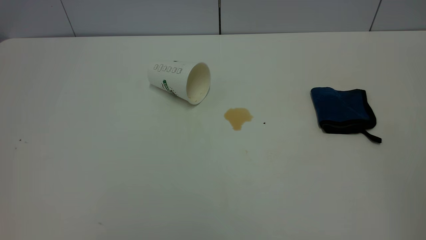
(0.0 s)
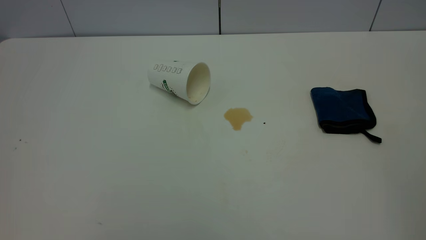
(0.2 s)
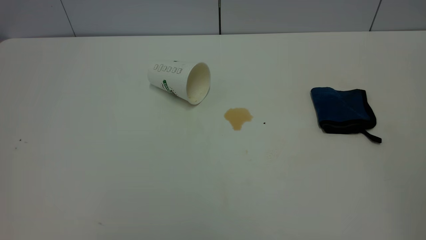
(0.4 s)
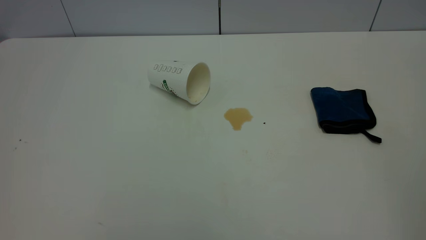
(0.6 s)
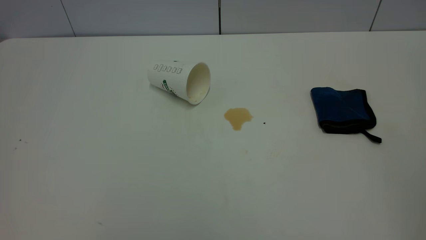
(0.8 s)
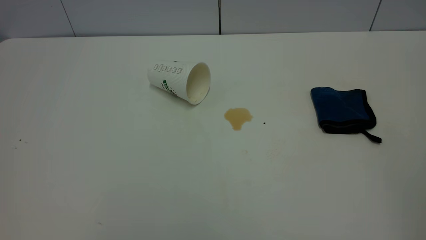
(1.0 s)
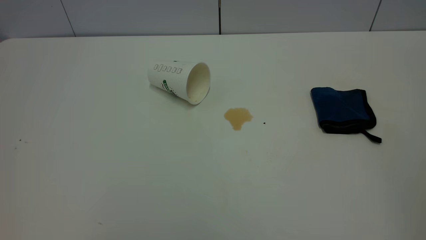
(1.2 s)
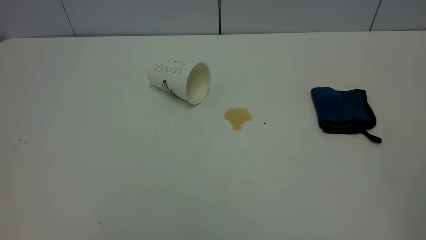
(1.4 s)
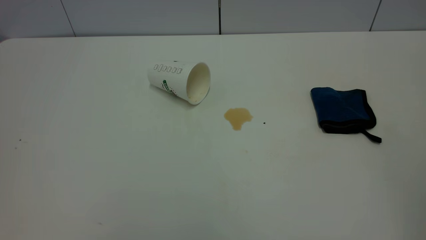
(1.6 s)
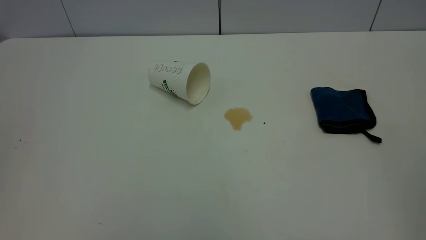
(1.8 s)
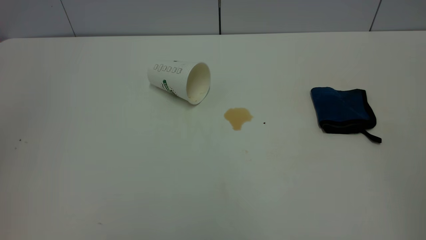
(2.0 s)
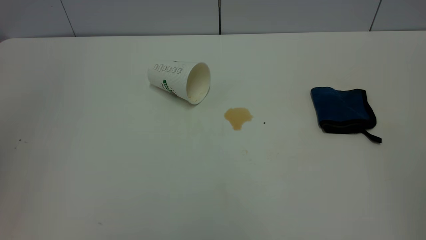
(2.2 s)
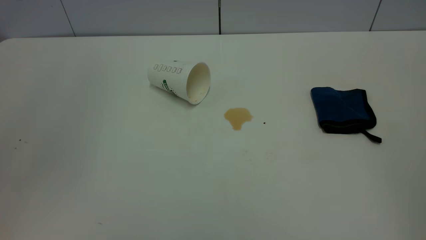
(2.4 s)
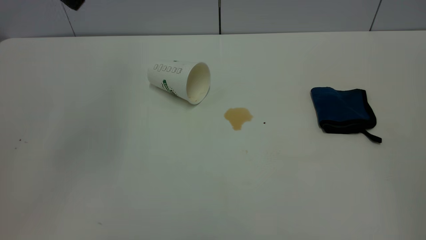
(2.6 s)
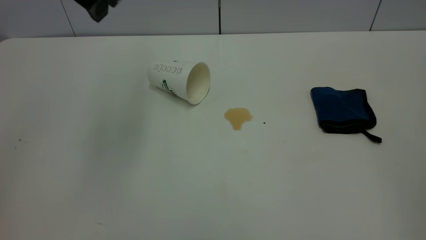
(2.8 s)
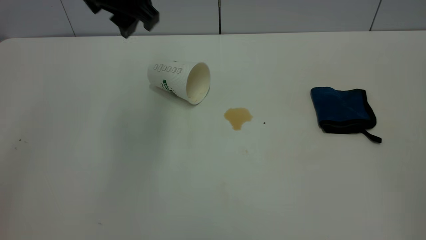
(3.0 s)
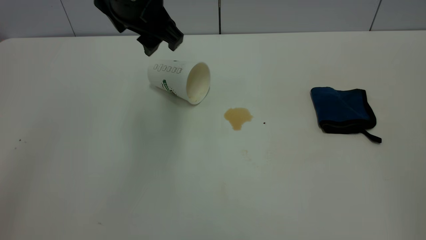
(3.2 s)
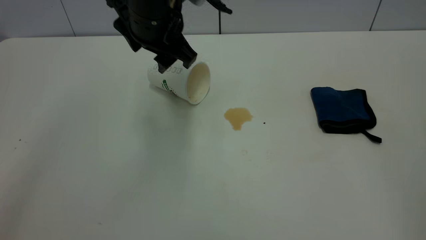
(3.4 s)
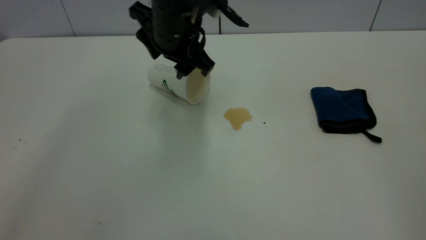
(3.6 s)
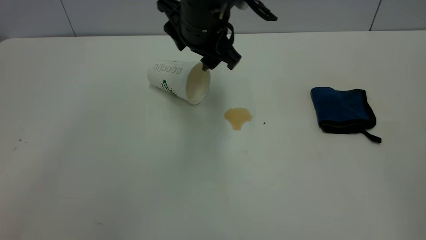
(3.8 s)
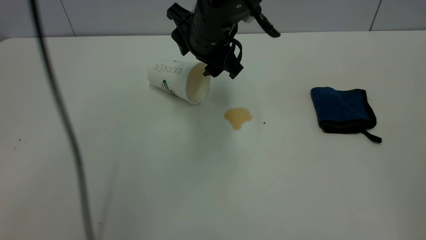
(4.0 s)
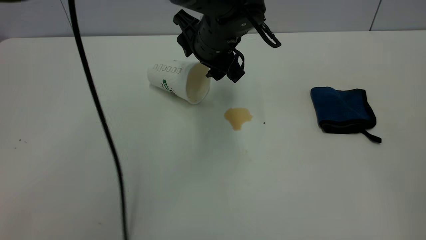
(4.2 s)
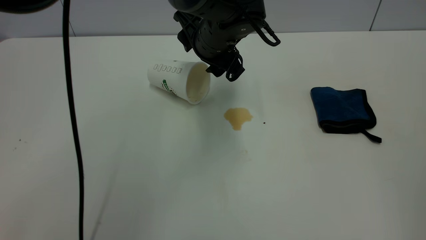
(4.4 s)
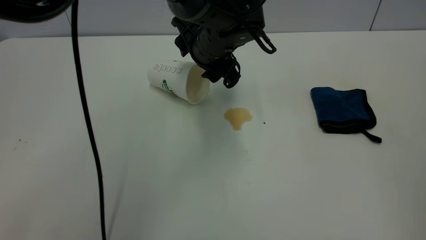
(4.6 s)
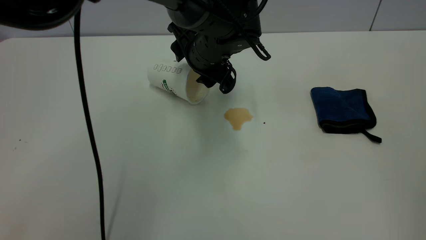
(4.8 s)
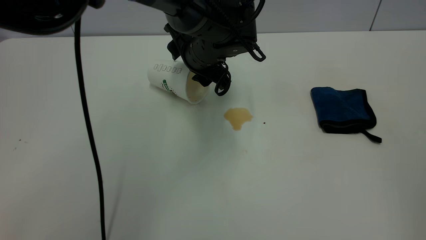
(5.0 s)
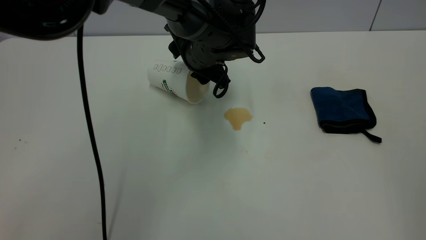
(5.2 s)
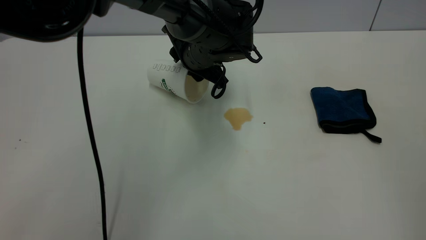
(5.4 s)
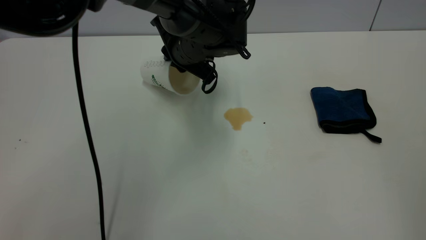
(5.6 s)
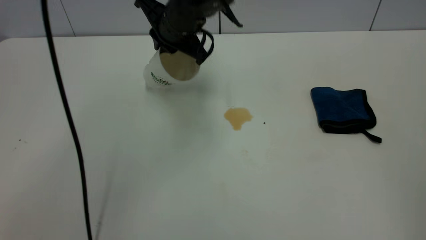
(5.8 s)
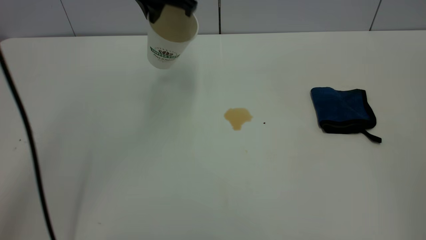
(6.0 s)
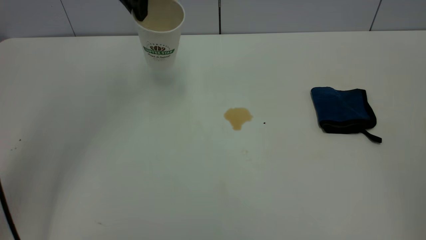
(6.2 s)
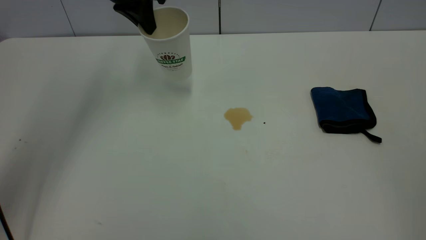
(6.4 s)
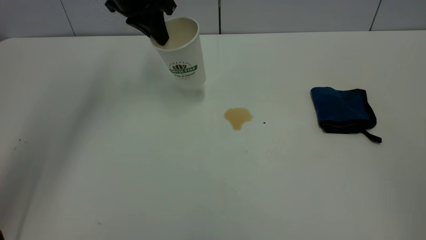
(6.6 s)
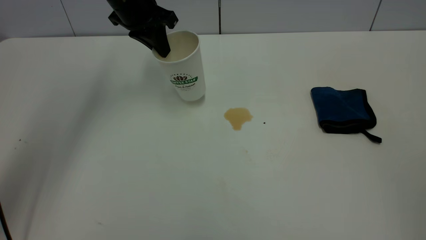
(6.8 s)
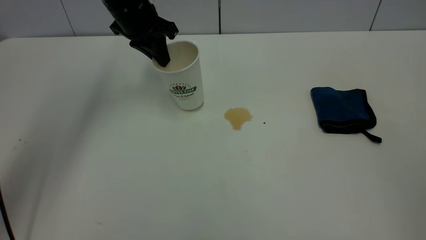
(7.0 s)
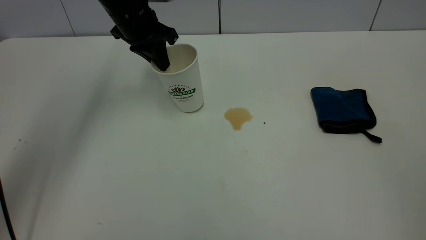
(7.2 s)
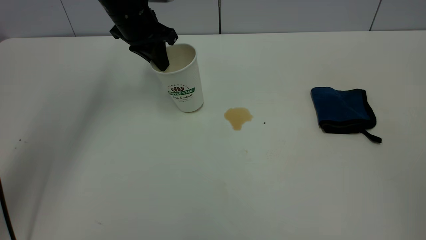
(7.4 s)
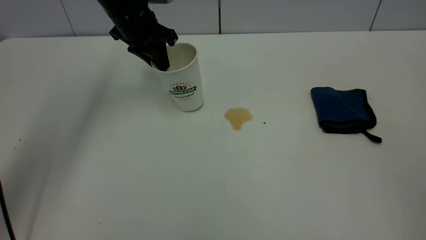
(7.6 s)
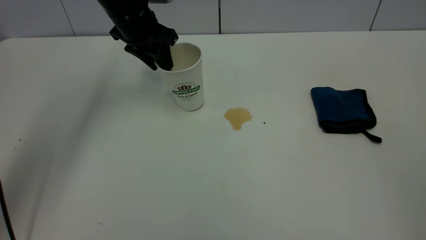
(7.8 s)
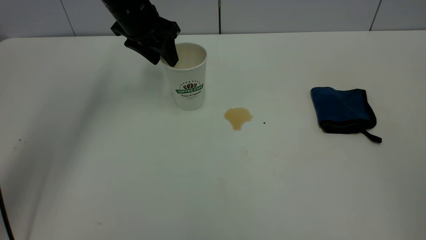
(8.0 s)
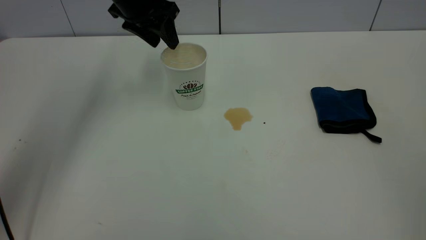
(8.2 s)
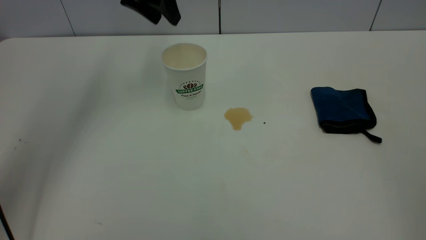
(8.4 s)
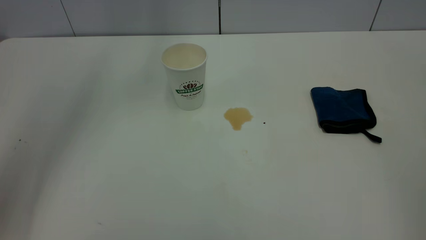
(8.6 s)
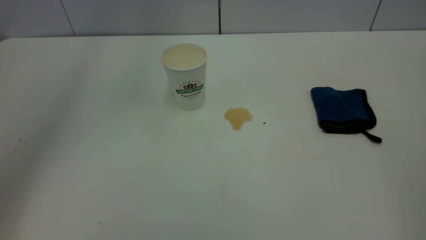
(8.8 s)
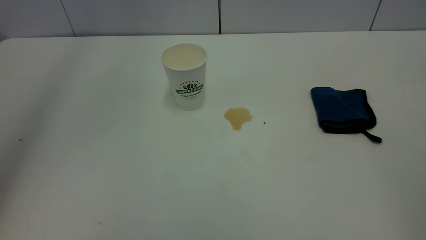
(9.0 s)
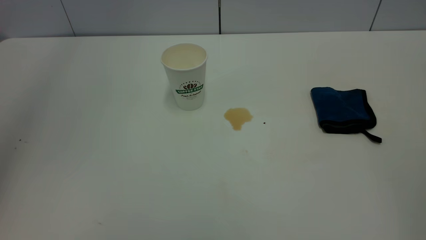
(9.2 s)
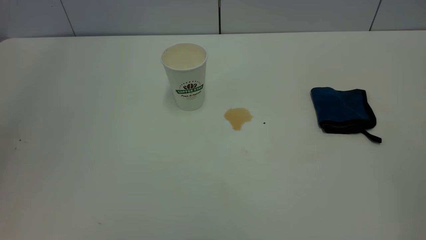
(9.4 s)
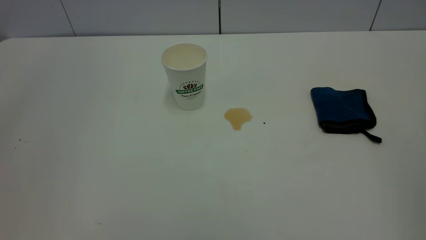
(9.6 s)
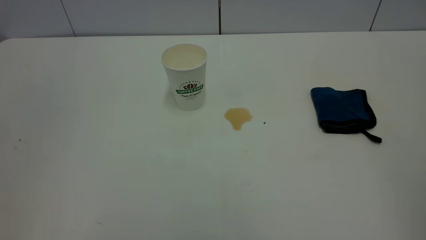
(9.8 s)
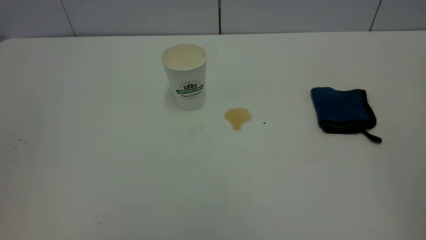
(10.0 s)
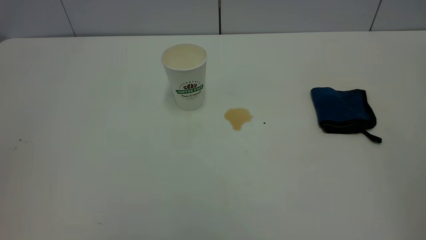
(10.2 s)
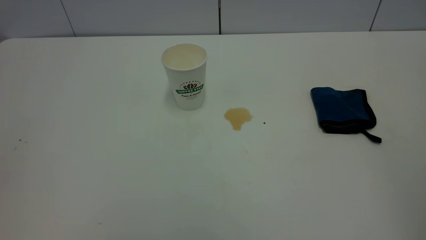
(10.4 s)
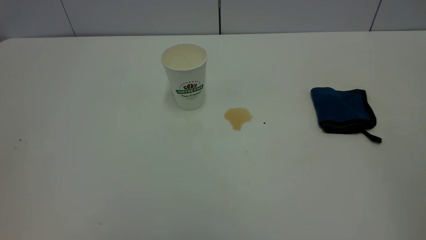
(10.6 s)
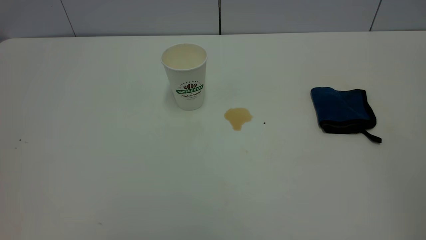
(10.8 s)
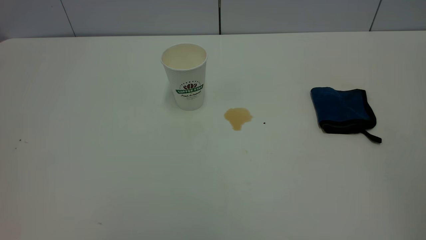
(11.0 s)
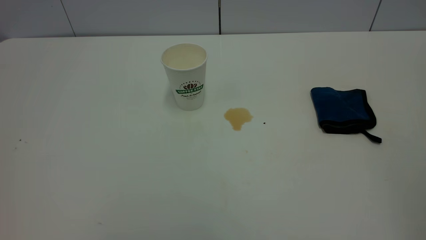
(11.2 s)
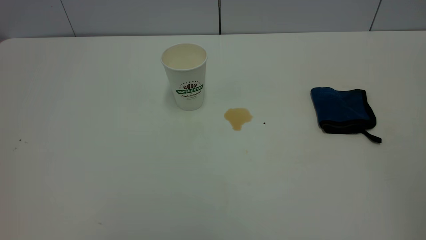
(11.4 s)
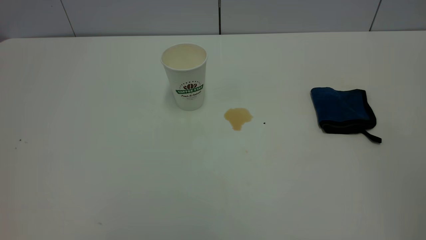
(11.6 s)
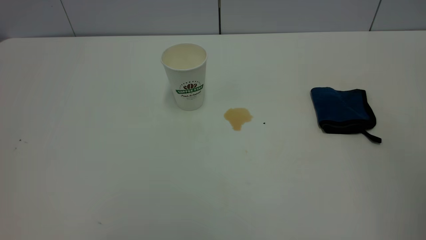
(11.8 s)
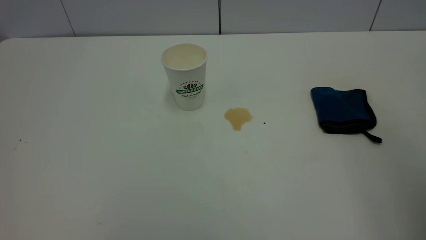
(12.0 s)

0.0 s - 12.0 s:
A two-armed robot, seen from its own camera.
Task of the whole recording: the left gripper pick up the fallen cup and place it upright, the right gripper grasp the blue rag and wipe the tea stain on the table, the right gripper put the blue rag back in its original position.
Step, 0.0 s - 8.2 s: Stand the paper cup upright.
1.6 s - 3.0 s: The left gripper heads forward and to the right, covering some 40 cm.
3.0 s - 4.4 s: The left gripper heads downward, to the right and forward, covering some 20 cm.
4.4 s - 6.0 s: The left gripper travels upward and to the left by approximately 15 cm, and closes up.
6.0 s - 7.6 s: The left gripper goes some 10 cm downward and to the left.
7.6 s - 9.0 s: The left gripper is displaced upward by about 35 cm, and opens its fingers.

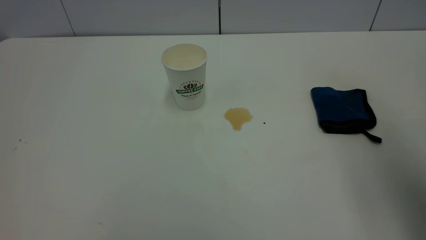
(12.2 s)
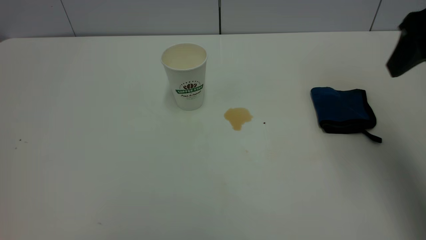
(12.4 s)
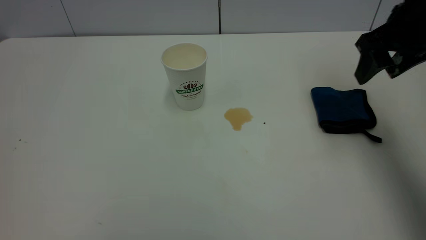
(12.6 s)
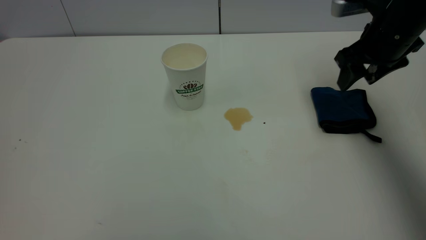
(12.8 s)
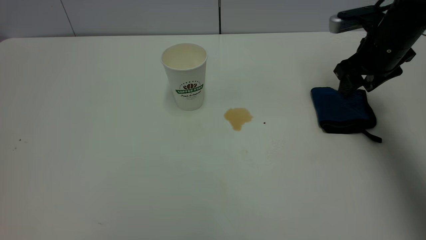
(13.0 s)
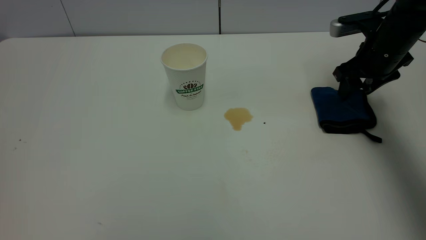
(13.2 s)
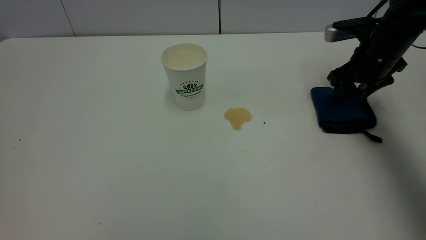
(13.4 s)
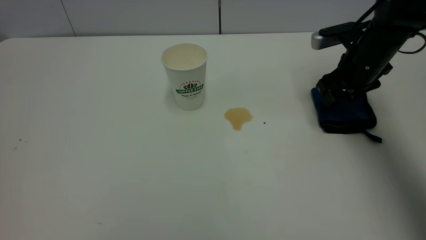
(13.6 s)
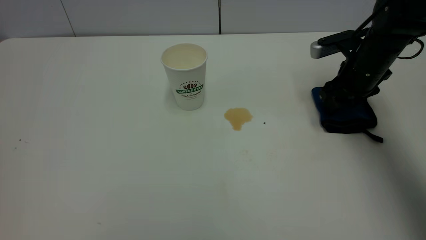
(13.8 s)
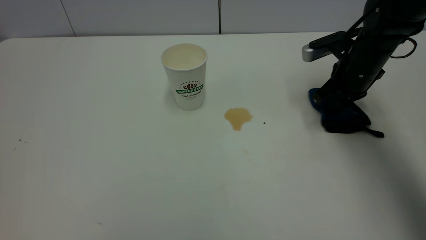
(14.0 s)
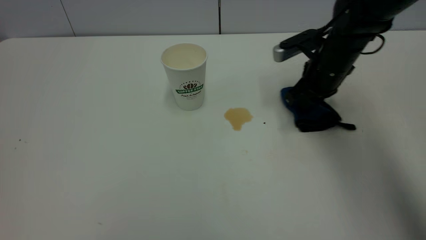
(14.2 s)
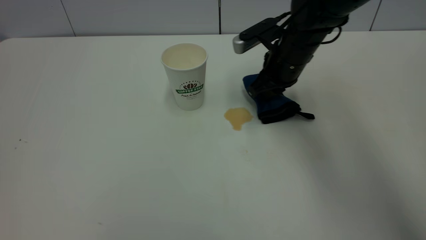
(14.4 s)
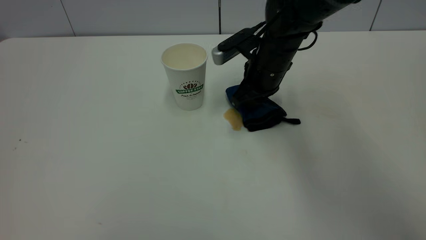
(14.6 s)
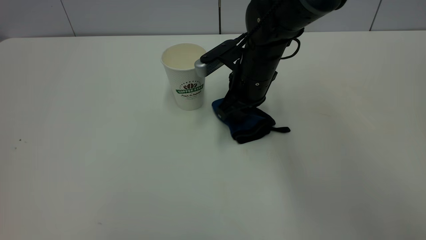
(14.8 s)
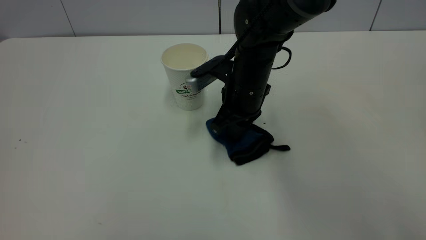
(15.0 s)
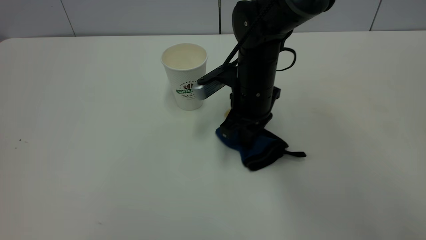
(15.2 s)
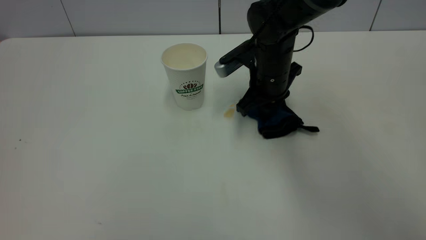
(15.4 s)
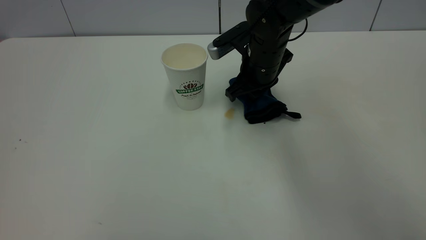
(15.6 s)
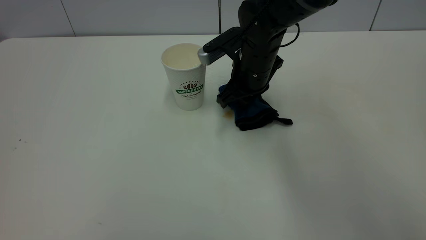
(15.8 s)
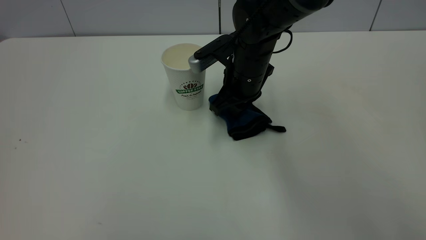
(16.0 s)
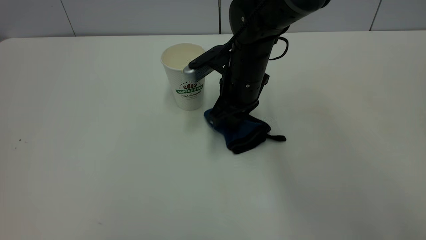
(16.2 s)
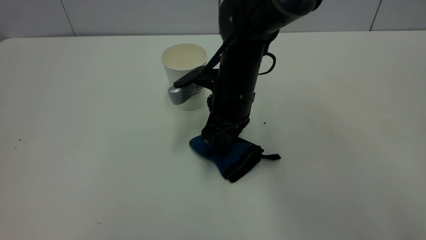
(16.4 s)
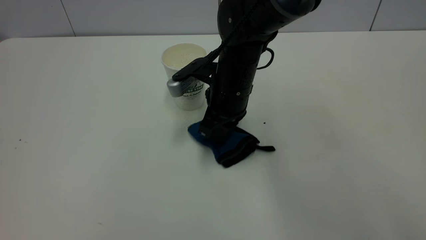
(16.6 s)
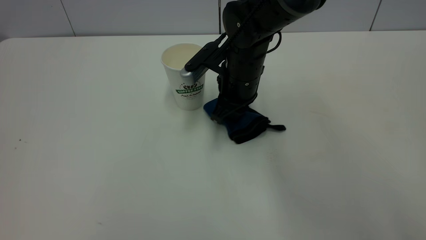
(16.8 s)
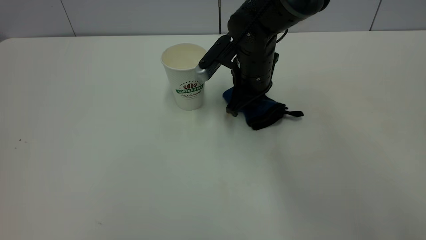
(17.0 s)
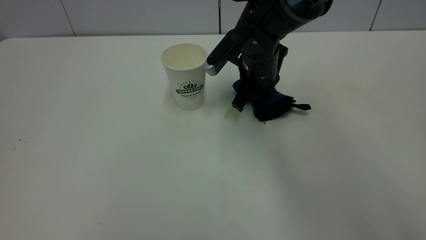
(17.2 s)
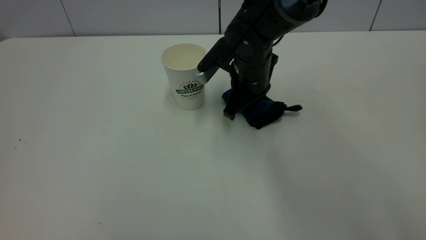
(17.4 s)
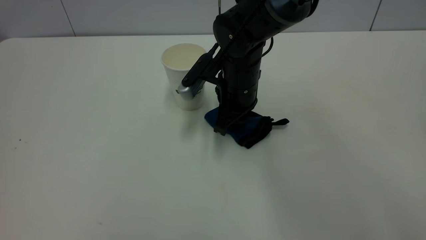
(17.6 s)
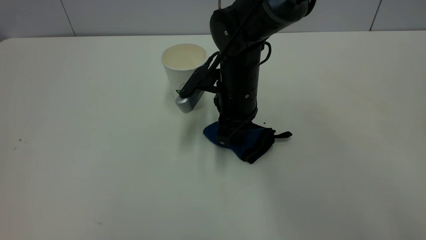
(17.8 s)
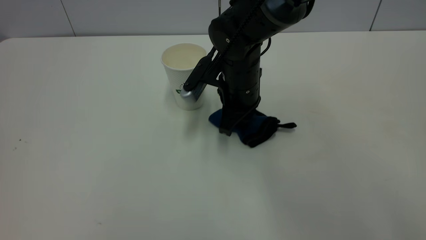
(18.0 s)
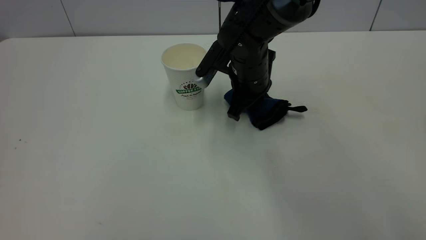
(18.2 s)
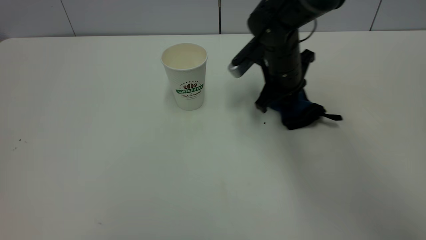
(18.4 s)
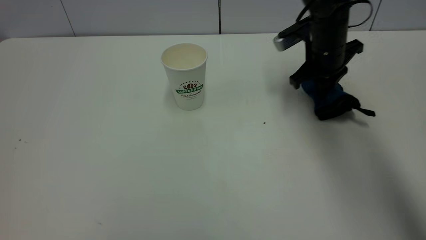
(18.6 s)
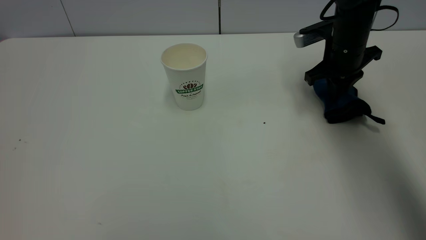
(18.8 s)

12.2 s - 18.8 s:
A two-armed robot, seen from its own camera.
Task of the whole recording: the left gripper pick up the fallen cup and place it upright, the right gripper grasp the blue rag and wipe the tea stain on the table, the right gripper put the blue rag back in its original position.
12.2 s - 13.8 s: The right gripper moves downward and forward, roughly 30 cm.
13.8 s - 15.4 s: The right gripper moves to the left, about 15 cm, and closes.
17.2 s - 18.8 s: The right gripper goes some 15 cm to the right.
